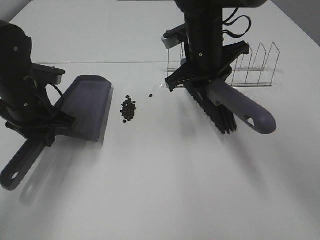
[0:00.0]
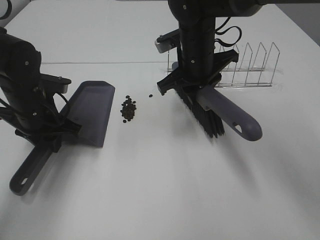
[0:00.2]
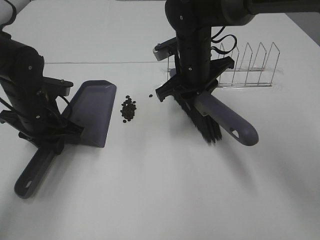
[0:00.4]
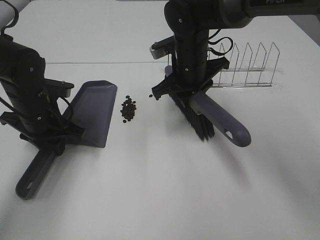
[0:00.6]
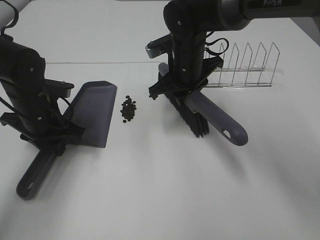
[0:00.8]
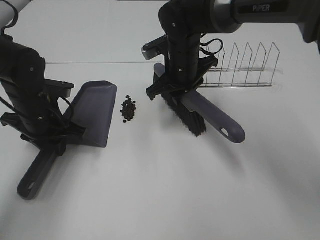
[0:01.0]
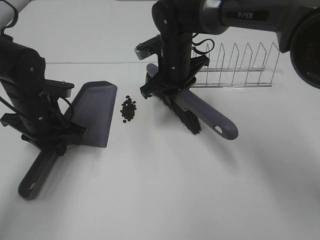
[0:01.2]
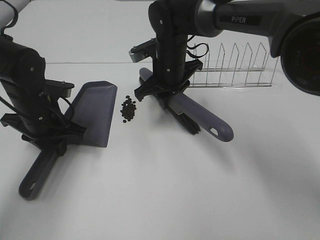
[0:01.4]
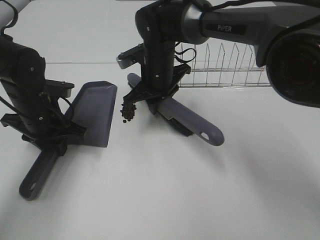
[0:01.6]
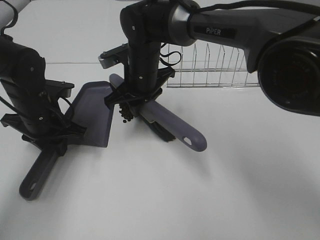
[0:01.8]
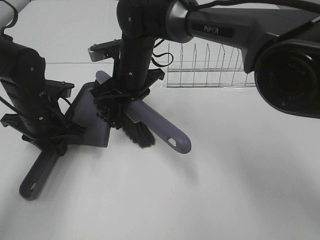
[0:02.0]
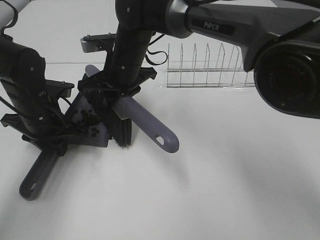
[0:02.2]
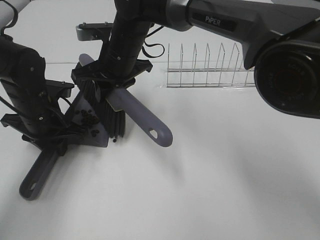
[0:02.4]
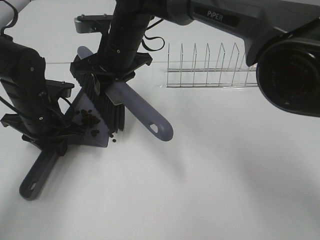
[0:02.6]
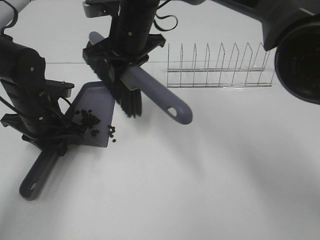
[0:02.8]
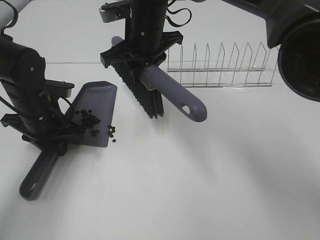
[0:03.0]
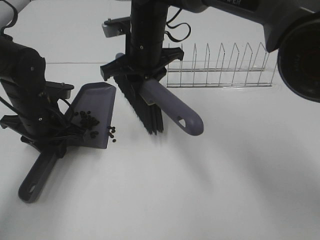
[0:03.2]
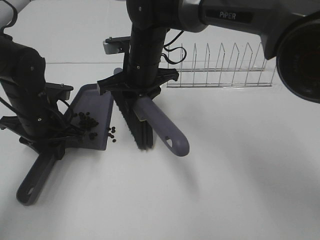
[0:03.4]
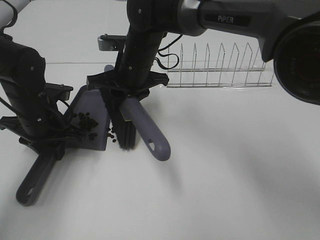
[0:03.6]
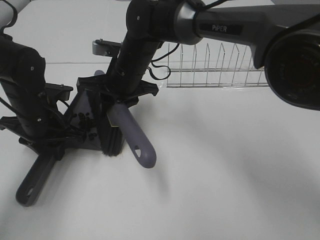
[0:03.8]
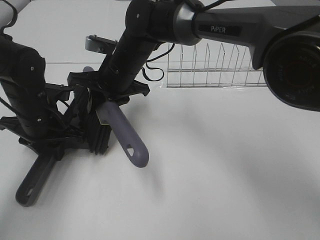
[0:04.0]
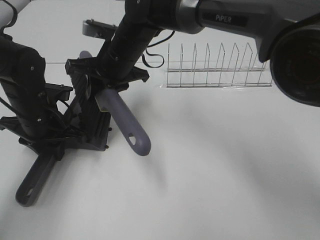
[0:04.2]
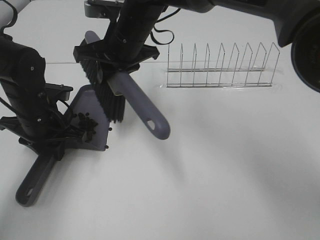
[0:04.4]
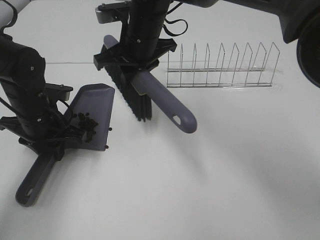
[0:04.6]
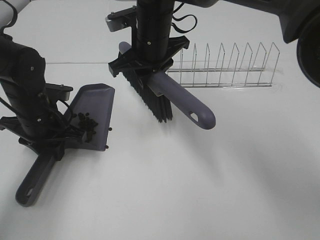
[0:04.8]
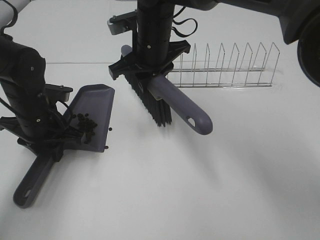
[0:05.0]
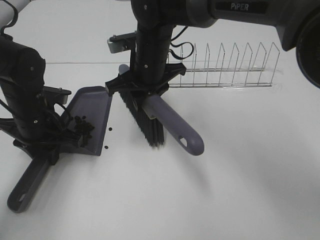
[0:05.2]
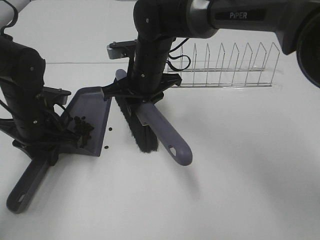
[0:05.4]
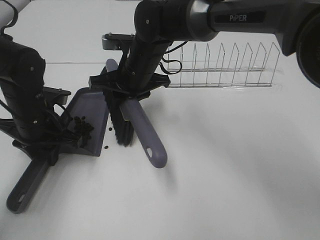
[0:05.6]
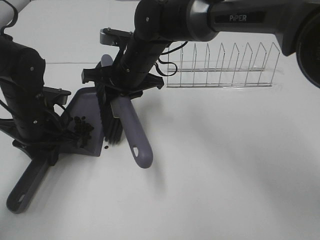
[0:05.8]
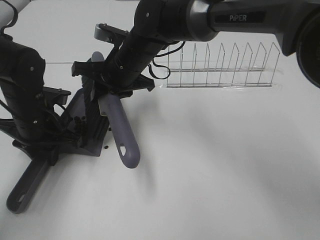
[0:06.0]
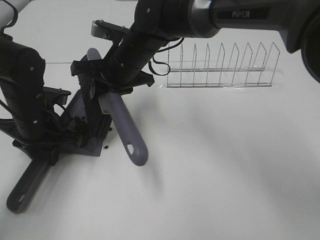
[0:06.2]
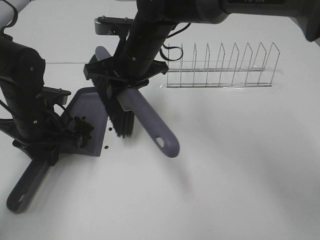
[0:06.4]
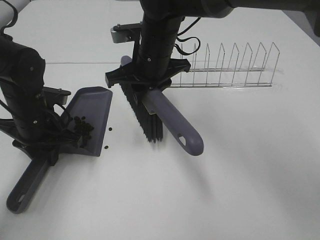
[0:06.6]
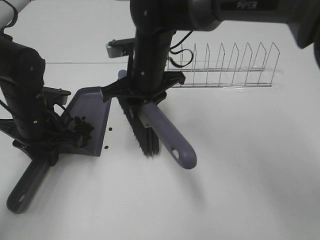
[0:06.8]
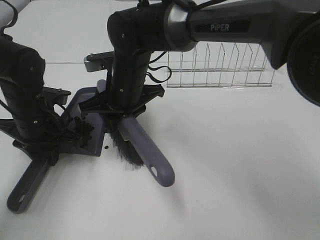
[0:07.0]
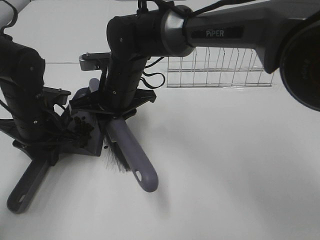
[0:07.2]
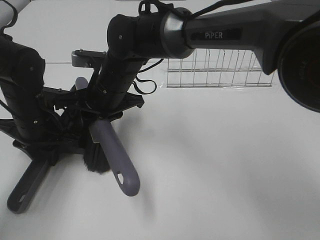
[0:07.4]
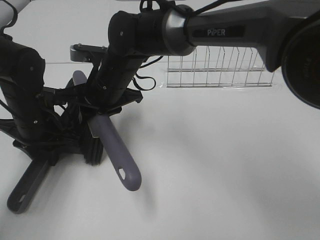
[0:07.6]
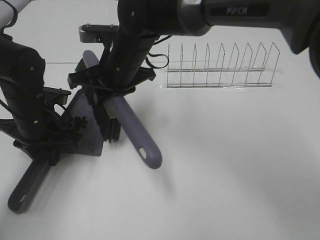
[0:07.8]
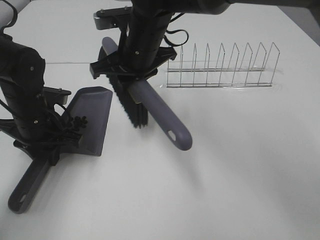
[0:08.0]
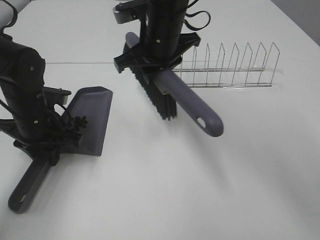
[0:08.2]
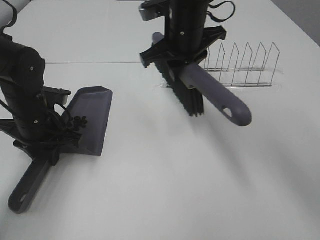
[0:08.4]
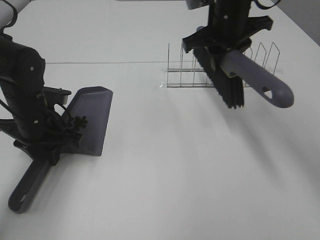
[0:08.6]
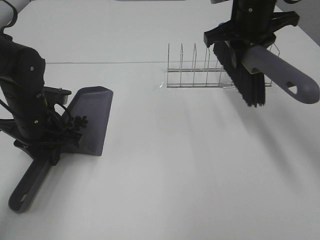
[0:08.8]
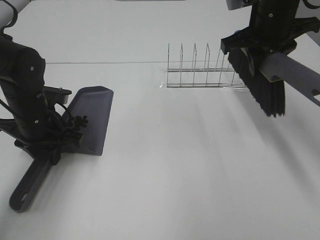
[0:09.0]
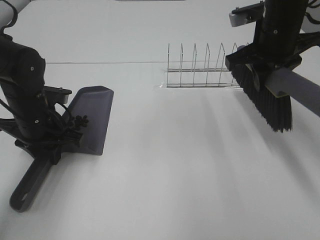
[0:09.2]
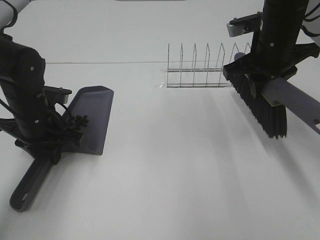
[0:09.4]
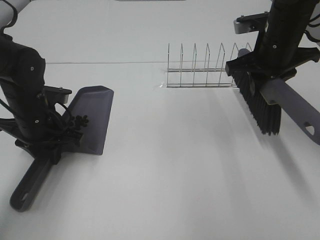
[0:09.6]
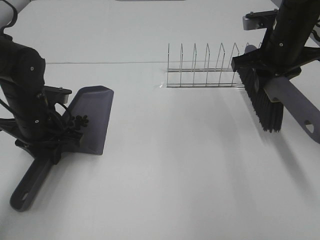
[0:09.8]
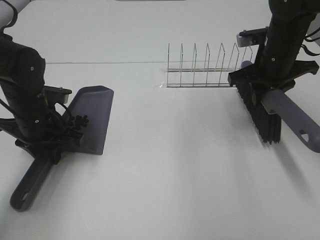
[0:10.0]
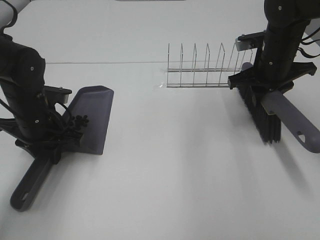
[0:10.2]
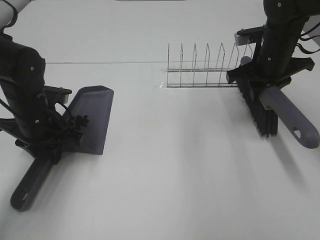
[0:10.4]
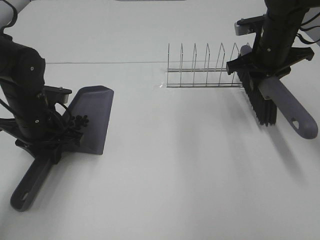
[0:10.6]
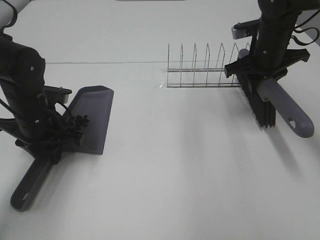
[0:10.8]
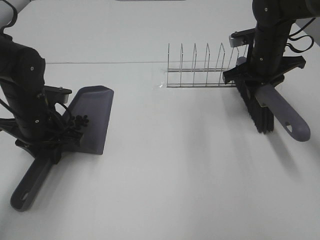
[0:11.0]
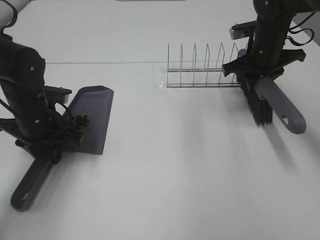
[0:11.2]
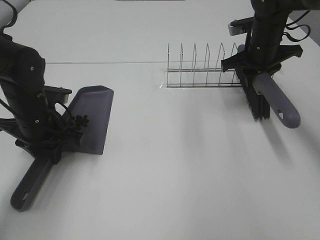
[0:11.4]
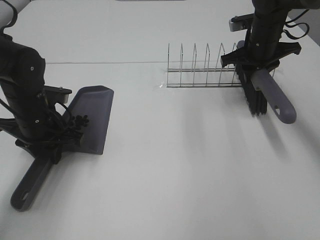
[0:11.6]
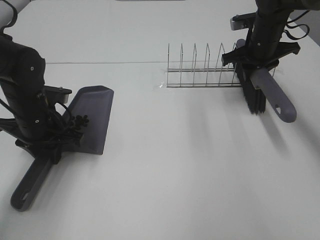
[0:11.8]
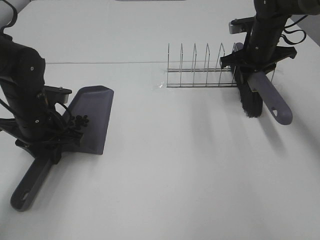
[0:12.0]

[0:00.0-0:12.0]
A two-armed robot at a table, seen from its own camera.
Task of the whole recording: Sweep Coffee Bean.
Step, 0:00.0 to 0:07.8: Right hand:sweep the coffee beans into the dustpan.
0:00.0 to 0:01.6: The right gripper travels to the left and downward by about 10 cm.
0:01.6 to 0:03.0: The right gripper moves upward, some 10 cm.
0:04.4 to 0:06.0: The right gripper ends up roughly 5 cm from where it was.
0:07.6 to 0:09.0: The right gripper heads to the right and upward, covering some 25 cm.
0:09.0 to 0:10.4: The right gripper goes about 10 cm downward.
0:10.4 to 0:12.0: The right gripper goes about 5 cm forward.

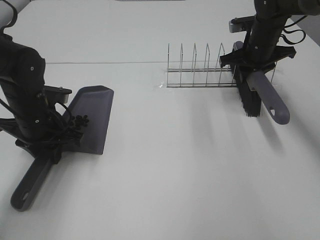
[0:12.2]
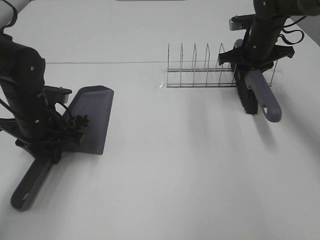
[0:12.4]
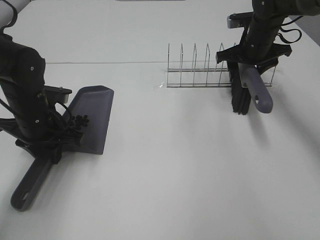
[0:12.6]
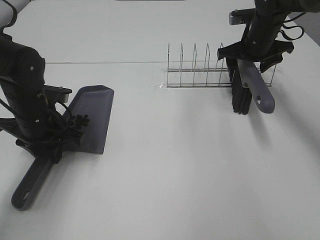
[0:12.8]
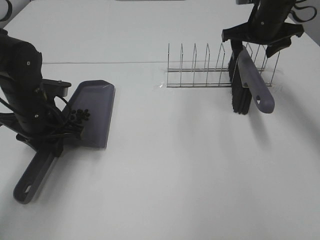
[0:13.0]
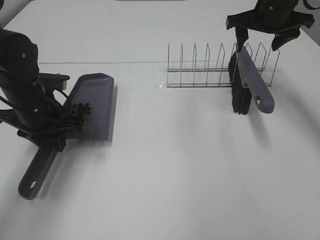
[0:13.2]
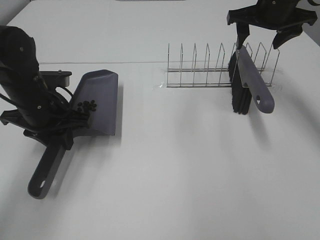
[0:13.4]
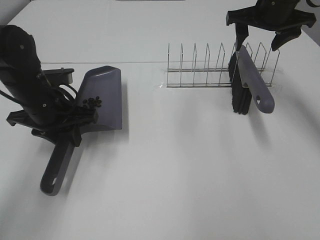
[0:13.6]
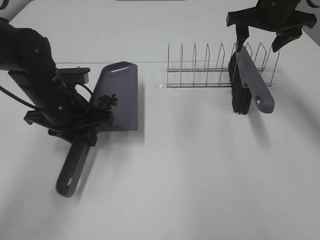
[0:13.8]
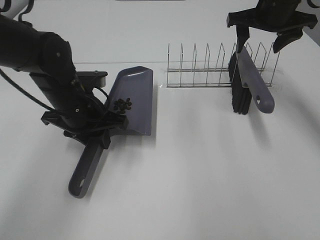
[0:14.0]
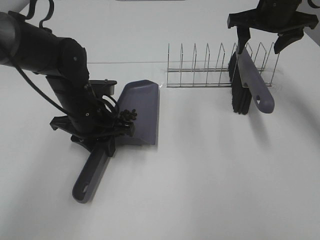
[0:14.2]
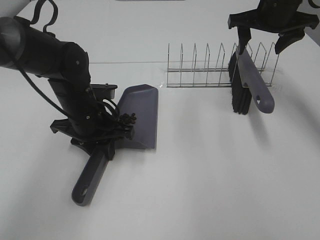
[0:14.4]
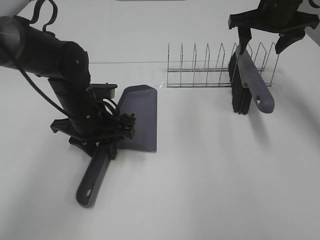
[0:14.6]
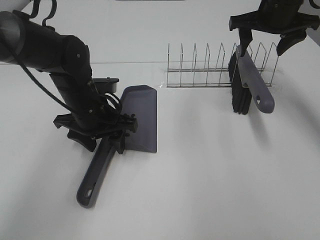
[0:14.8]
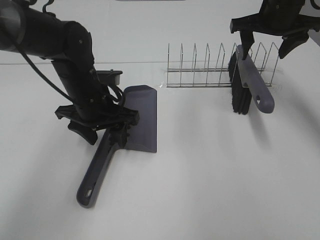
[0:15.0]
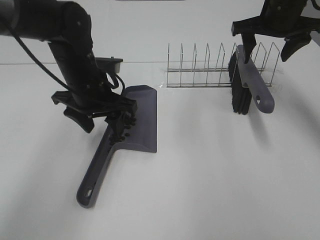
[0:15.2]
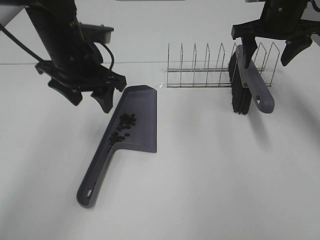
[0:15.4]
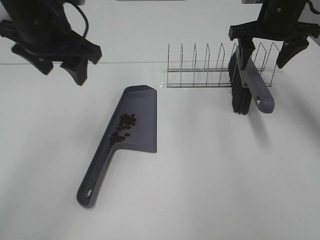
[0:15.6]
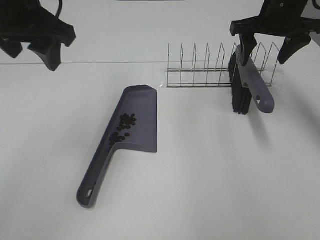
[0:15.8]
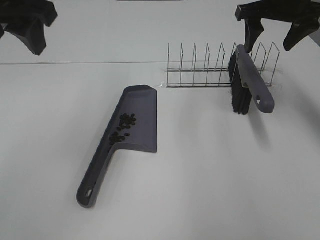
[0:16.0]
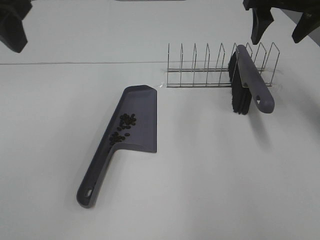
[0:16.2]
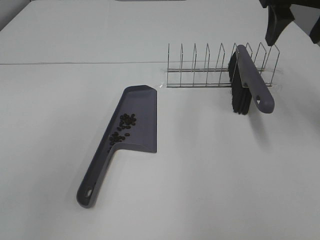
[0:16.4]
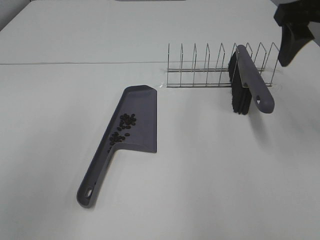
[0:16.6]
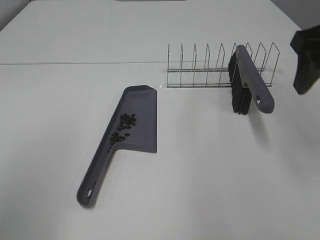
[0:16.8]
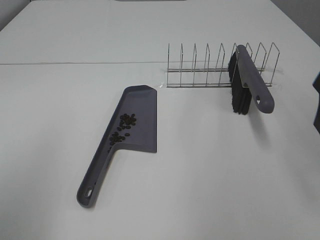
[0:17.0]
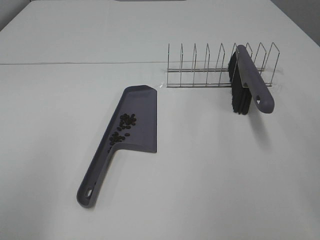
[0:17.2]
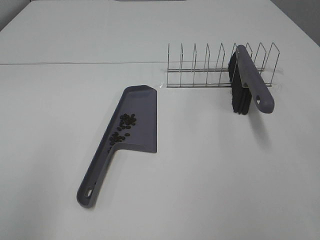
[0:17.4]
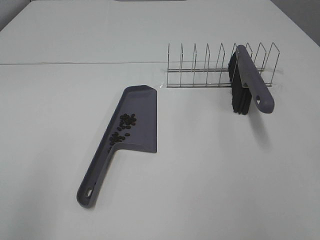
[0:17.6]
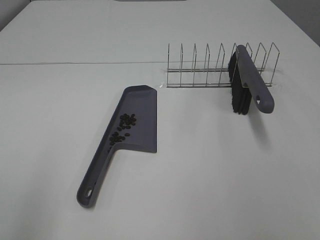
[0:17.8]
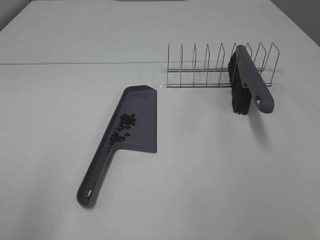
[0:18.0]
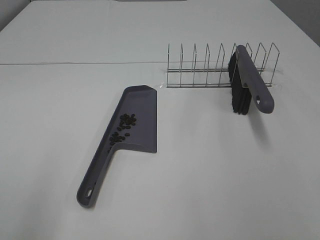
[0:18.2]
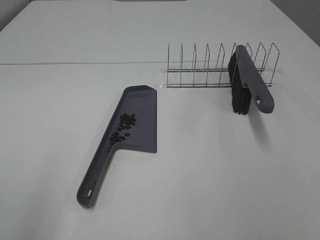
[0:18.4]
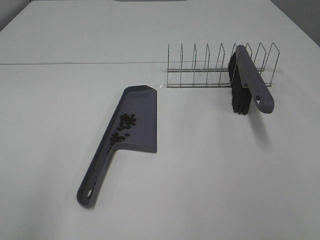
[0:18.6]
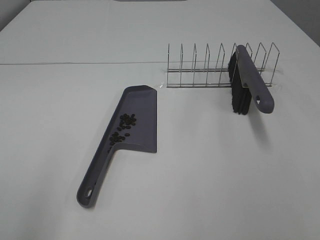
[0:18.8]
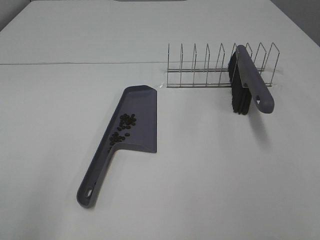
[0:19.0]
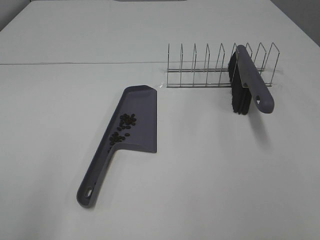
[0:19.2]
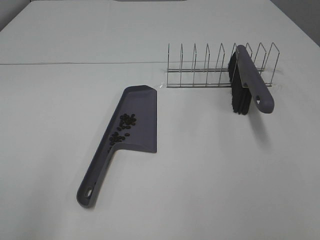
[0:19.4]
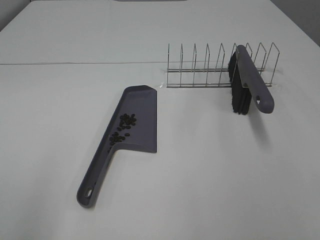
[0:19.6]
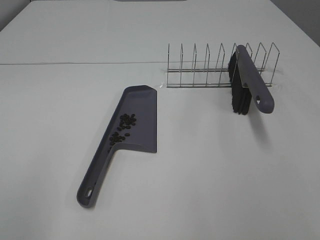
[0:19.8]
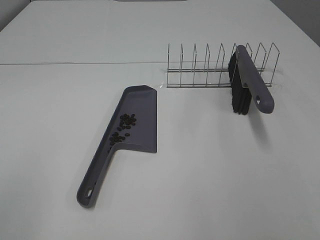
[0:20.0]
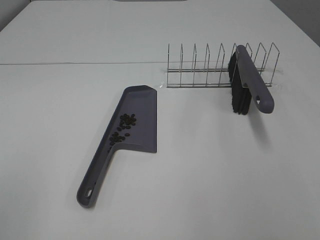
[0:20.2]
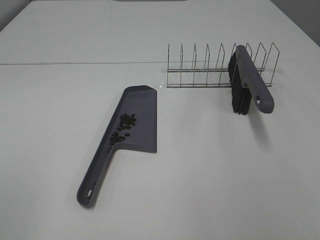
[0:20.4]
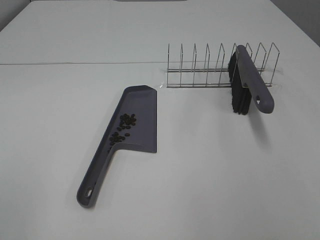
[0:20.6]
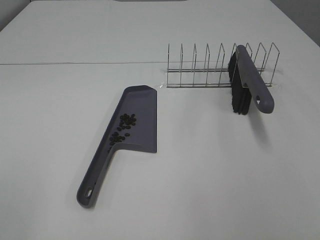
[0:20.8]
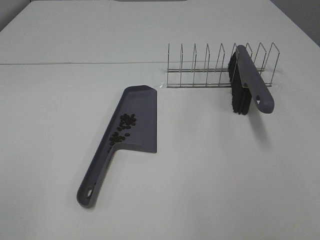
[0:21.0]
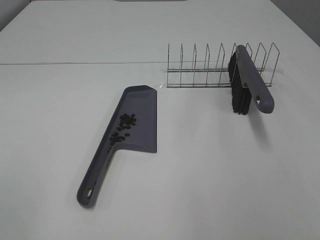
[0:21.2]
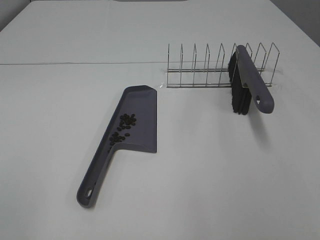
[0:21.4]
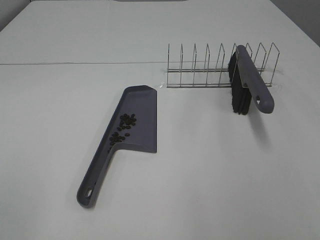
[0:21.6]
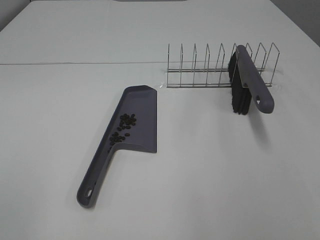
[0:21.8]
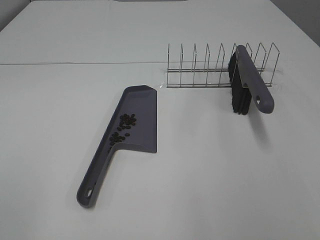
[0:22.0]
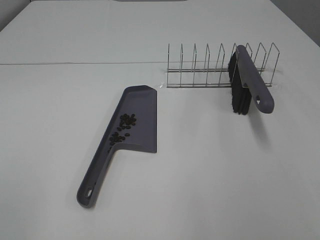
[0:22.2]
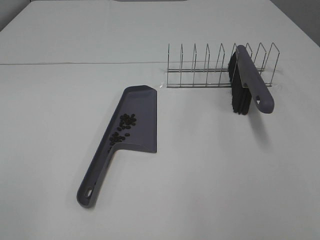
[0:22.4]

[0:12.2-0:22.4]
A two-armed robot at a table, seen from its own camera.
Task of the whole recording: Sweep Coffee Bean.
Step, 0:13.2 to 0:15.0: Left hand:place the dustpan on the table.
0:12.2 to 0:13.6: The right gripper goes some 10 cm upward, and opens up.
0:13.6 to 0:15.2: The left gripper is displaced to the right by some 5 cm, and opens.
0:15.2 to 0:16.6: The left gripper travels backward, upward and to the left by some 30 cm; the right gripper travels backward and upward by some 15 cm.
0:16.6 to 0:18.0: The right gripper goes about 30 cm backward.
0:21.0 to 0:22.4: Both grippers stay put.
